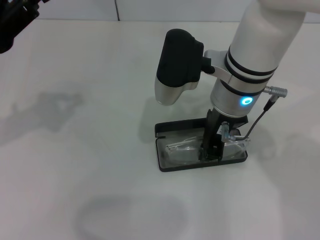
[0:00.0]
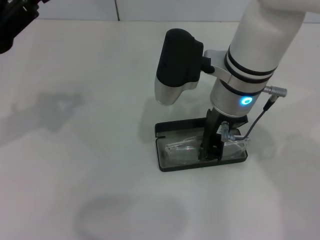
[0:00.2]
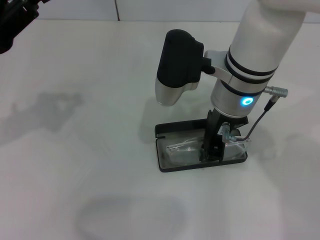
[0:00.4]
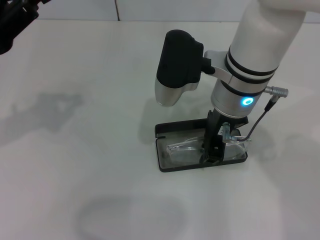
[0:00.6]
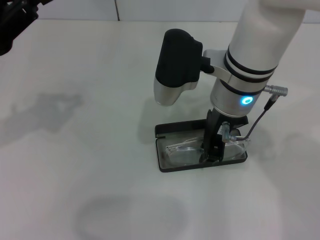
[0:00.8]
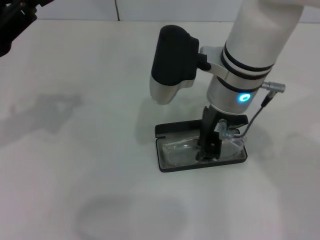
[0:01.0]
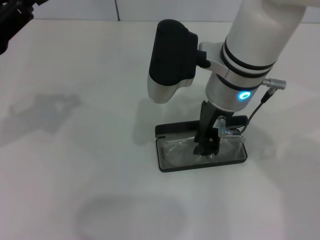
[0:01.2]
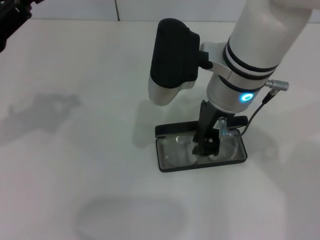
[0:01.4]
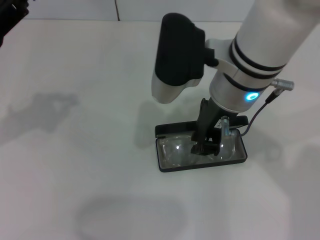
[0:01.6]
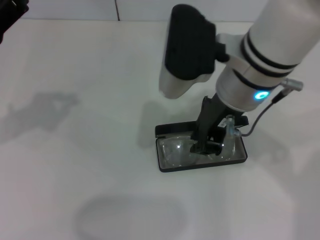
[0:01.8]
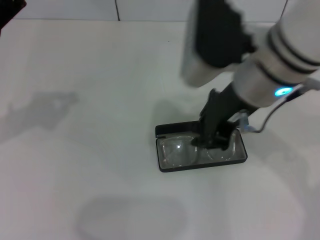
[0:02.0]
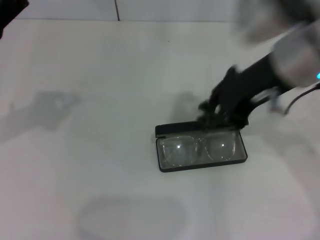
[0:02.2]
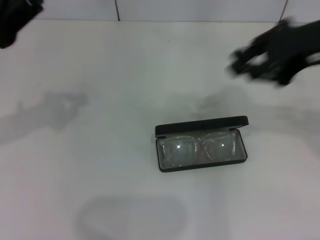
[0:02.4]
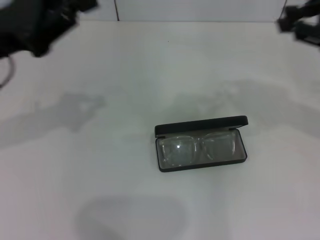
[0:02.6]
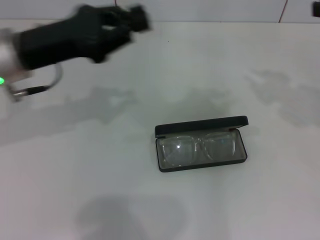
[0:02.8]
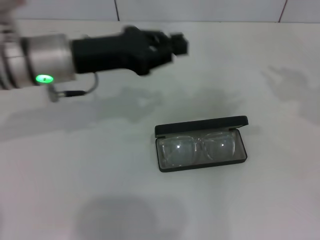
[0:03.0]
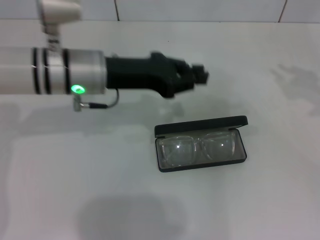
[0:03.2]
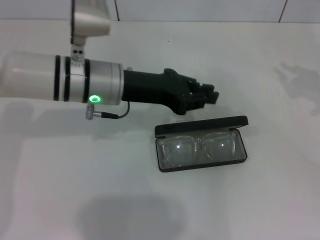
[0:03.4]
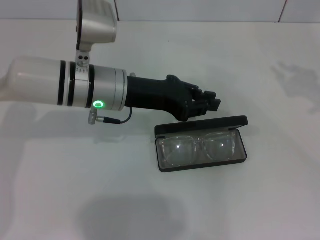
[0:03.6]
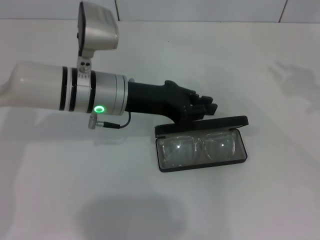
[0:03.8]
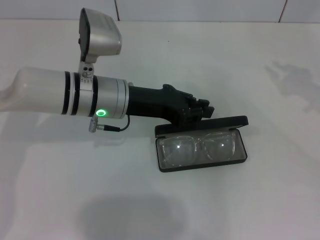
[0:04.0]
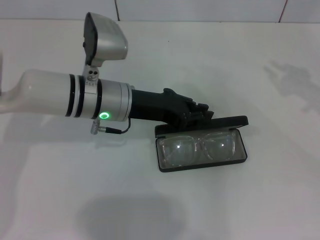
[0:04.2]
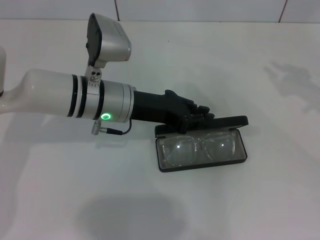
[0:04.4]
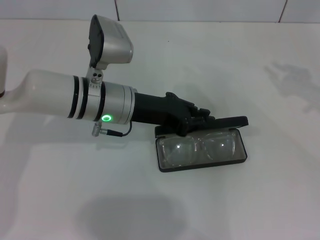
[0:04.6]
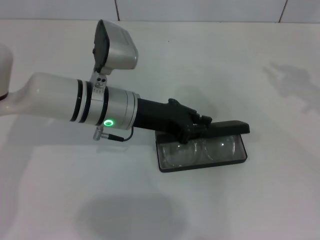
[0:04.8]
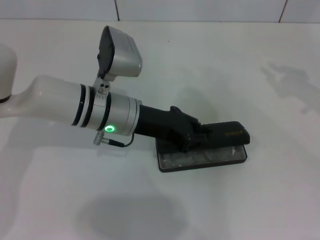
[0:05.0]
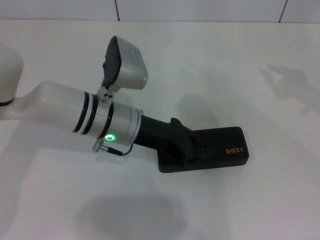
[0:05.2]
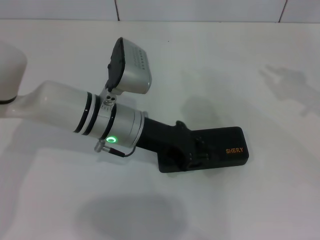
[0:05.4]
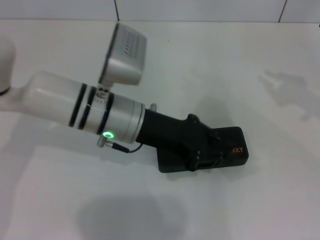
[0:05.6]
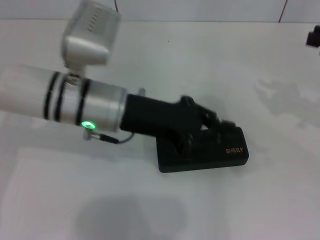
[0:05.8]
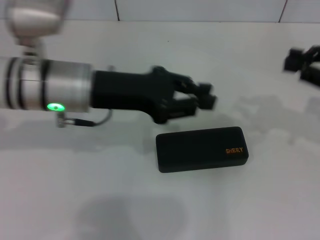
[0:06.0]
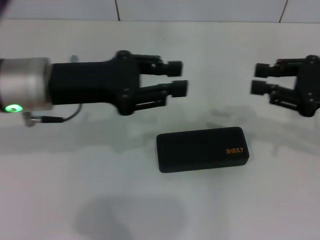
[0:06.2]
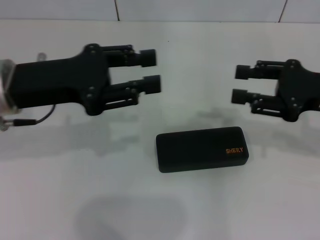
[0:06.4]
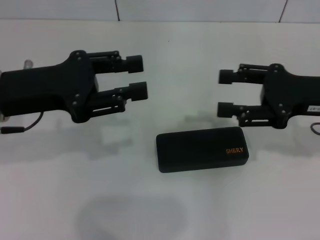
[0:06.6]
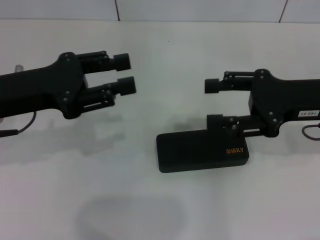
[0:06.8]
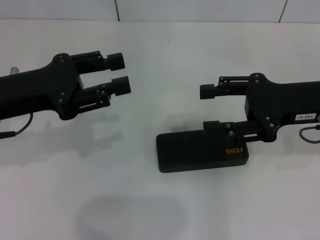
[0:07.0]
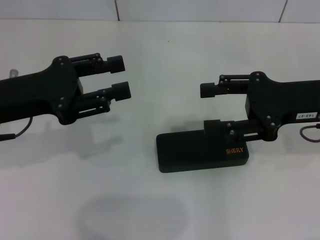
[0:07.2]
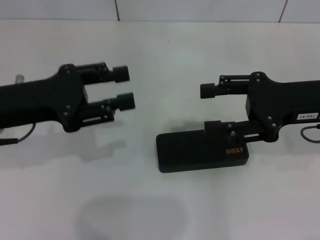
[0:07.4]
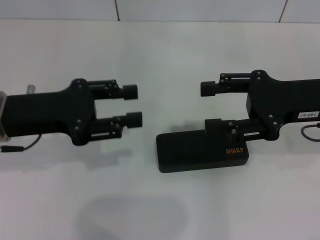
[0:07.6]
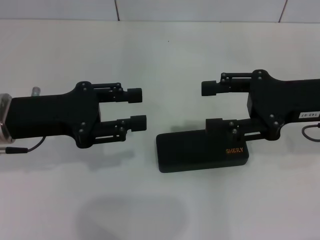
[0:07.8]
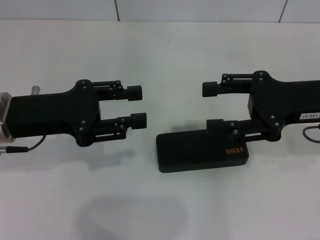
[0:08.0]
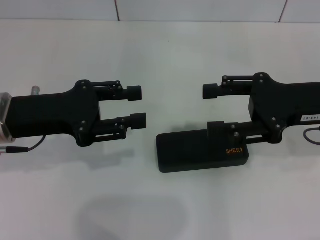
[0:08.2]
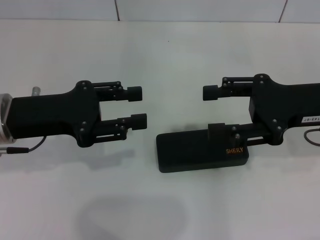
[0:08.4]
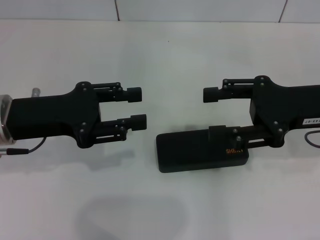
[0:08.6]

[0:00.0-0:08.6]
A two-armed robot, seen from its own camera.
Step, 0:01.8 to 0:05.2: Close the glasses case with your left hand.
0:00.0 to 0:01.4: The grippers make only small movements.
0:01.4 to 0:02.8: The right gripper shifts about 25 cm to the right; the left gripper heads to the right, covering about 10 cm.
0:02.8 to 0:04.4: The left gripper is displaced to the right and downward by approximately 15 cm; the right gripper moves roughly 5 cm.
0:04.4 to 0:05.8: The left gripper shifts by about 5 cm.
0:05.8 to 0:07.2: The grippers both shift to the left by about 15 cm. The left gripper opens its fingers; the right gripper opens its fingers.
0:07.2 to 0:08.6: The grippers move only a little.

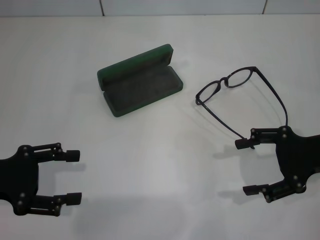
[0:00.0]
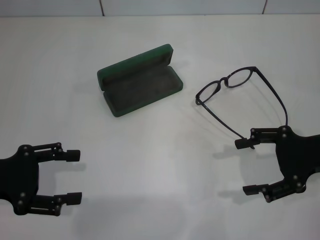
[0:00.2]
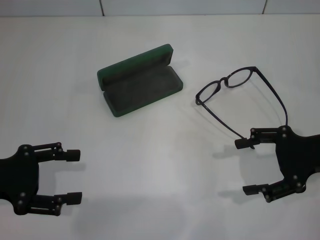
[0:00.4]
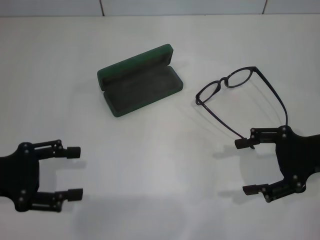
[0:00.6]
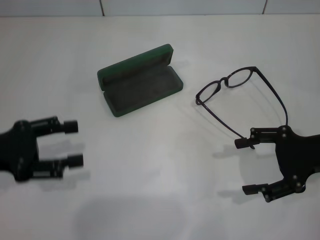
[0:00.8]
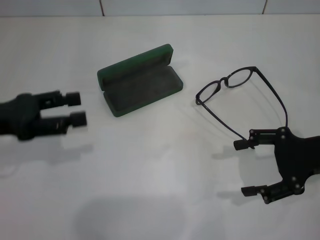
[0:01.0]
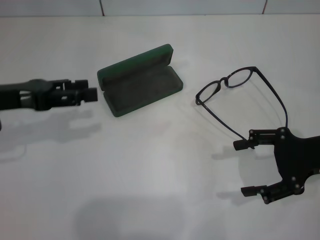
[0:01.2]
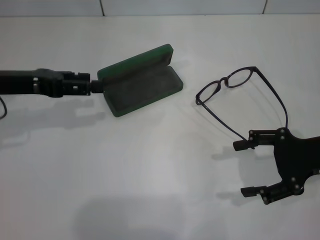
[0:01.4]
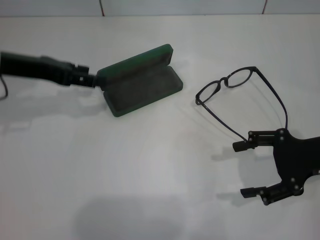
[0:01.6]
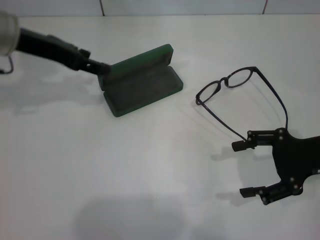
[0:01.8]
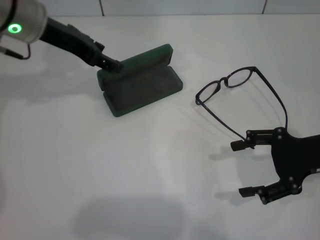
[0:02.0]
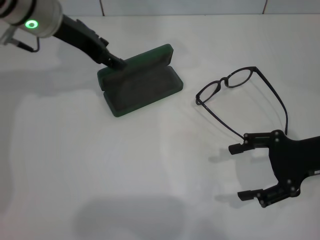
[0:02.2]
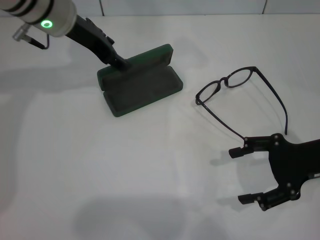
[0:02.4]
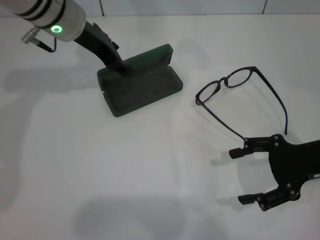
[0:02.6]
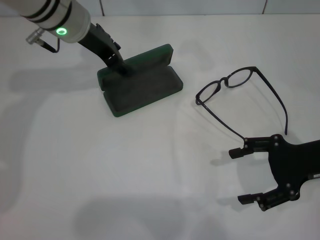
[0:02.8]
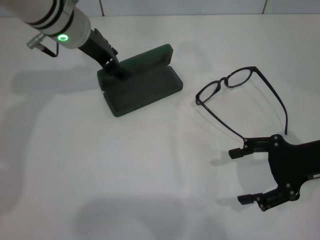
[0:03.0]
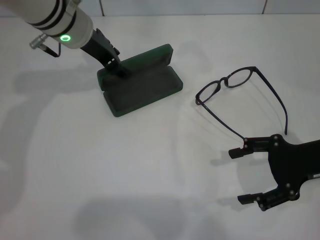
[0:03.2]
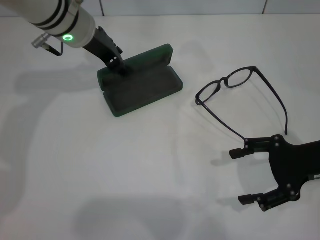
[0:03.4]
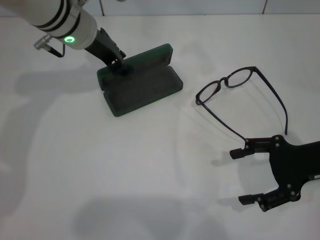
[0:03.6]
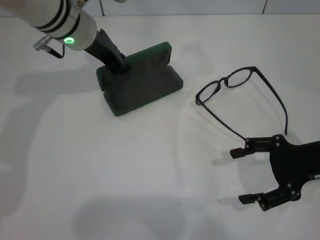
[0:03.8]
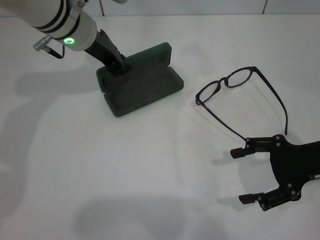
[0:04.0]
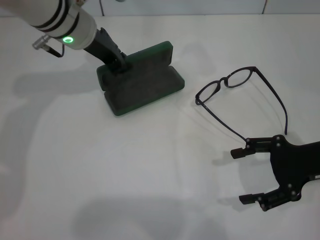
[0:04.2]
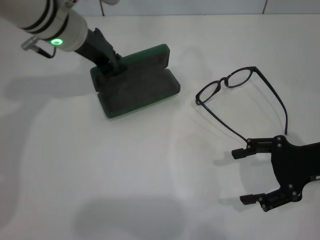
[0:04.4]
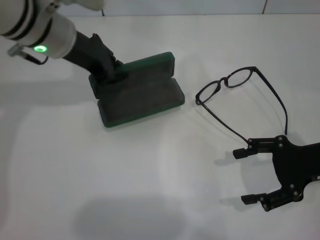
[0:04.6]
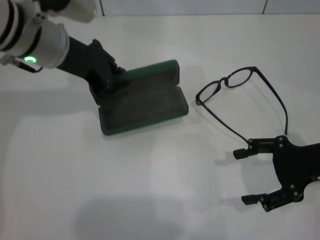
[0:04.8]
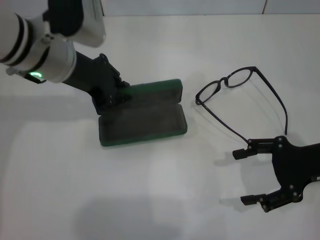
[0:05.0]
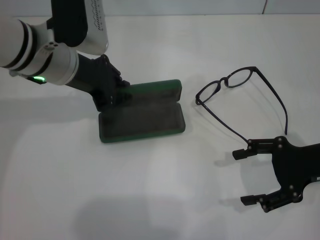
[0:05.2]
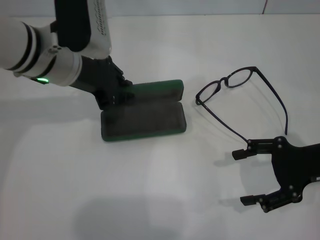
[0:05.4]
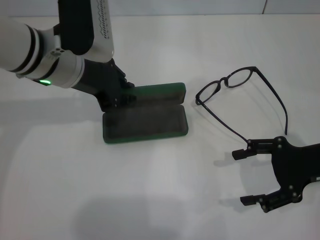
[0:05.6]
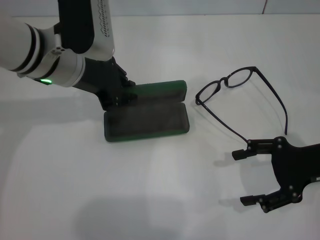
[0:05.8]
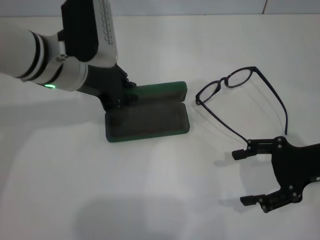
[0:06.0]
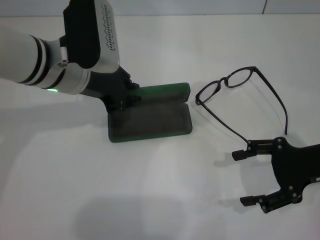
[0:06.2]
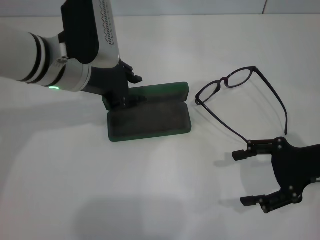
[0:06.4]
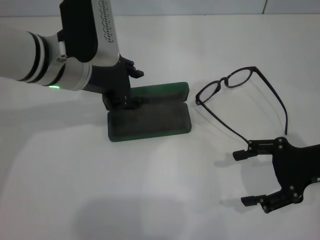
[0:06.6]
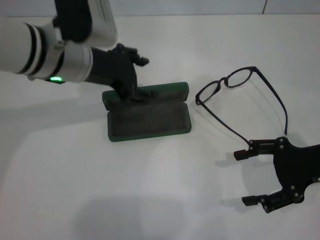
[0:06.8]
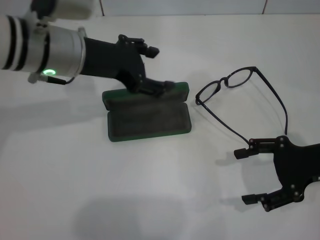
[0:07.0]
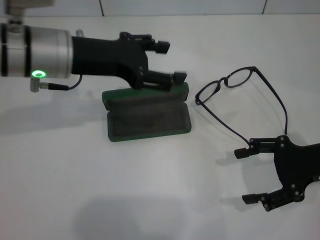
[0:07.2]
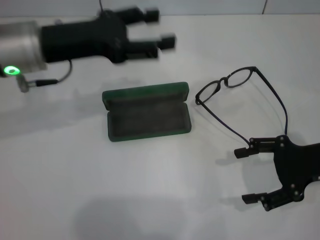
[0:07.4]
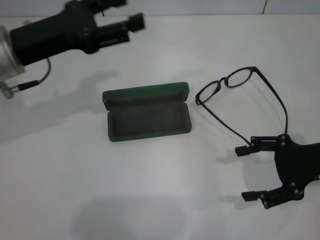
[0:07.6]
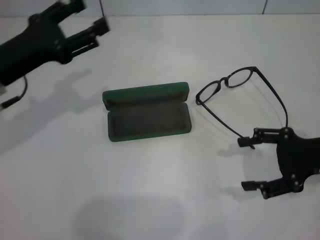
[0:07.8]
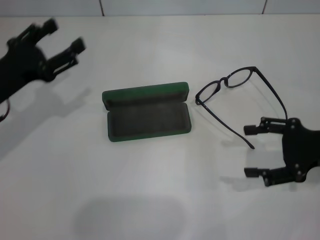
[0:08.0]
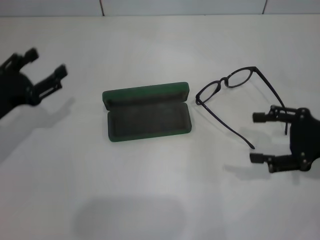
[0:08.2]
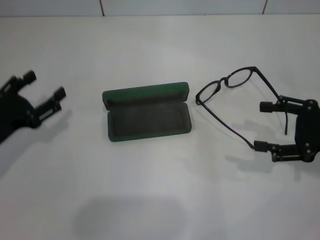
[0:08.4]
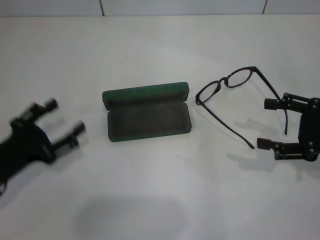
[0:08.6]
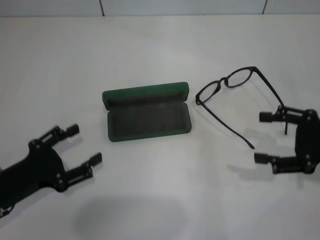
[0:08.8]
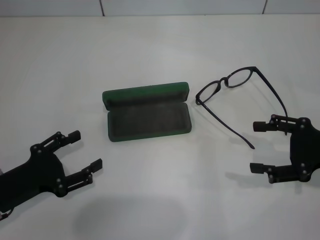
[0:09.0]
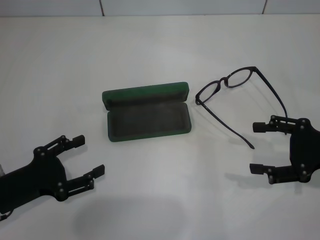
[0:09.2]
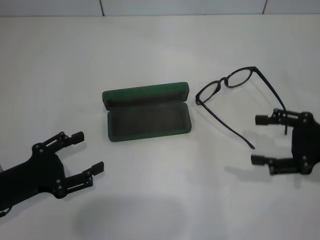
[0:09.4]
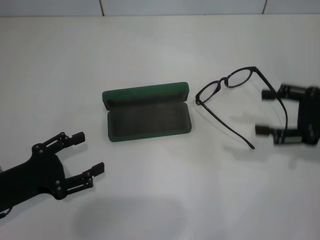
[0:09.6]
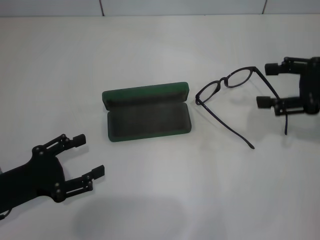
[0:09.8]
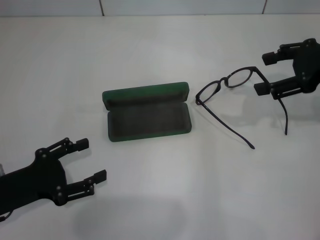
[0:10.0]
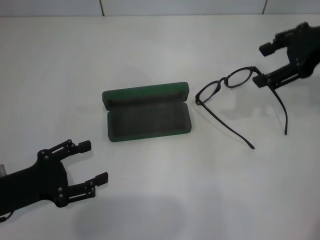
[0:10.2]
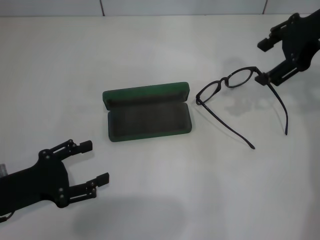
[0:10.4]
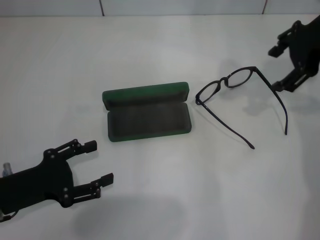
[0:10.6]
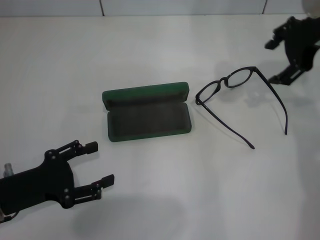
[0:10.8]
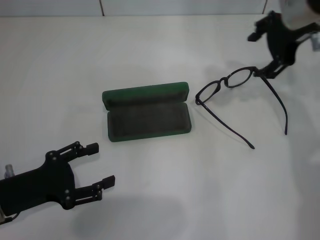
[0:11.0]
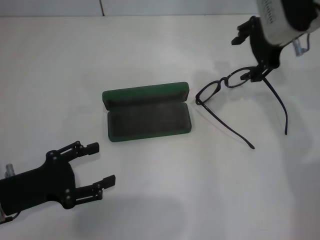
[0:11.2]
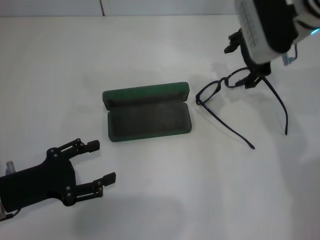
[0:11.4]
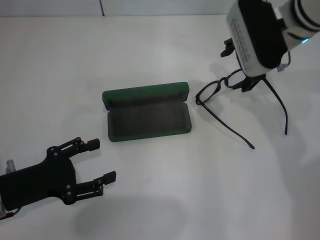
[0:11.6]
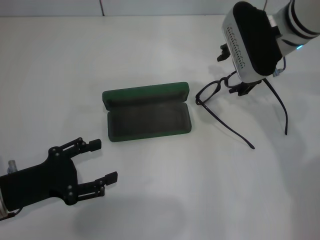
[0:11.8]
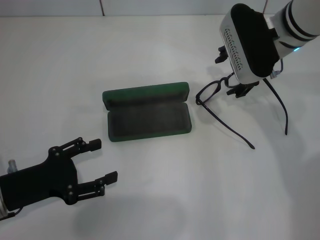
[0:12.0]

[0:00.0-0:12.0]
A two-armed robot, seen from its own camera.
Step, 0:00.0 to 0:04.0: Grab the glasses case with your left hand.
Step, 0:04.2 to 0:06.2: Place the glasses case in the center of the table with your left hand.
0:00.0 to 0:01.6: The left gripper moves forward and upward, some 15 cm.
0:01.6 to 0:03.0: The left gripper goes some 15 cm to the right and forward.
0:03.0 to 0:04.4: The left gripper closes.
0:04.4 to 0:06.0: The left gripper goes about 5 cm backward.
0:06.0 to 0:07.6: The left gripper shifts approximately 10 cm to the left, and opens its fingers.
0:07.6 to 0:09.0: The left gripper shifts approximately 20 cm backward and downward.
0:09.0 to 0:10.4: The right gripper goes roughly 20 cm upward, forward and to the left.
0:10.4 to 0:12.0: The right gripper travels to the left and downward by about 15 cm.

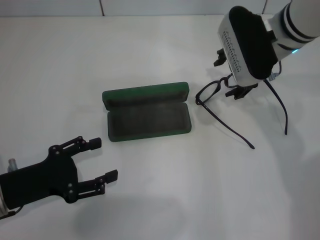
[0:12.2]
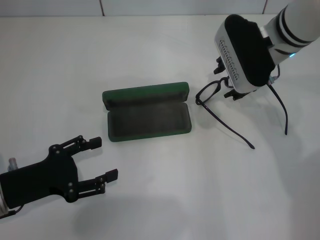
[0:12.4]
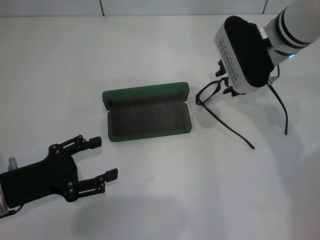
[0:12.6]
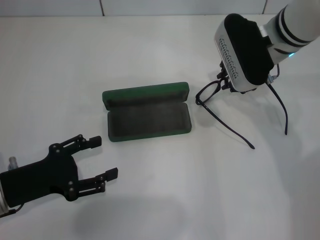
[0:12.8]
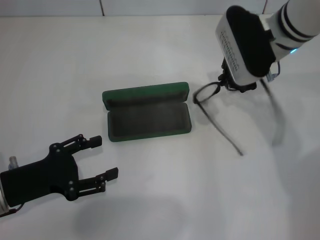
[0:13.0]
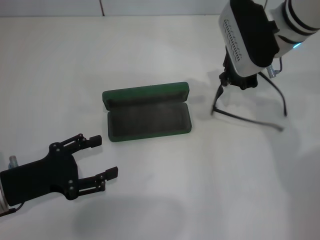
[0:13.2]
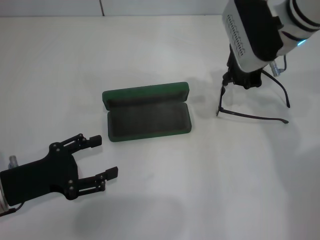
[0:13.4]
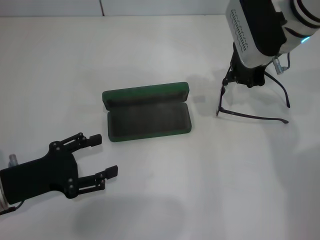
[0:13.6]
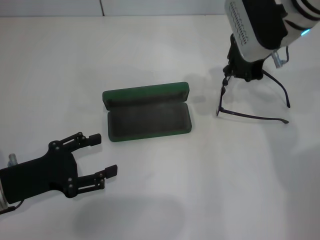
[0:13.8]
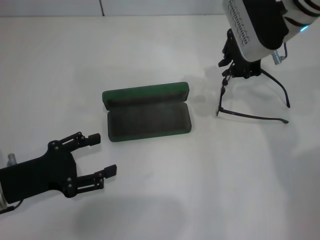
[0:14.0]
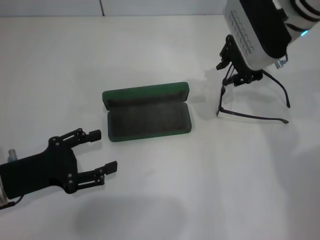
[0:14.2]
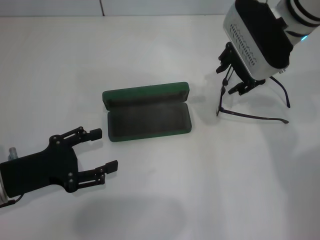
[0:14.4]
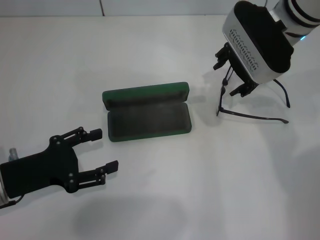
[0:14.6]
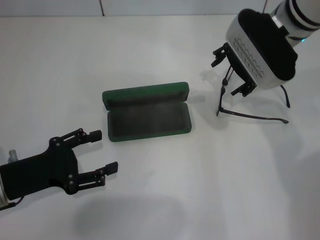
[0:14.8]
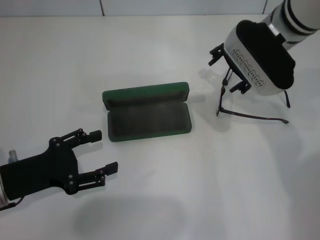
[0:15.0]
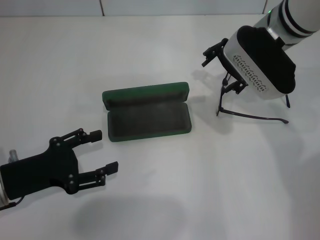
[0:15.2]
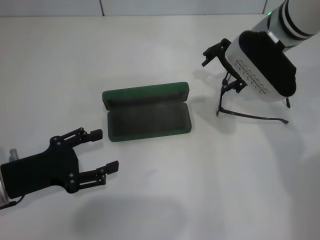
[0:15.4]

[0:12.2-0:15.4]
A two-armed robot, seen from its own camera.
0:12.2 to 0:13.8: The right gripper closes.
0:13.8 to 0:15.4: The right gripper opens up.
